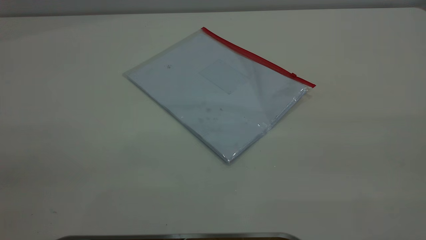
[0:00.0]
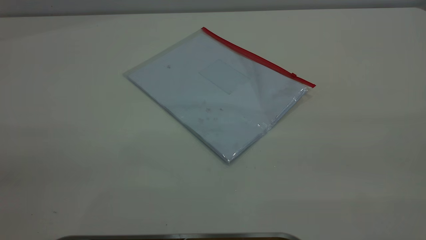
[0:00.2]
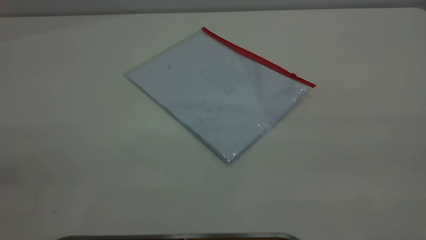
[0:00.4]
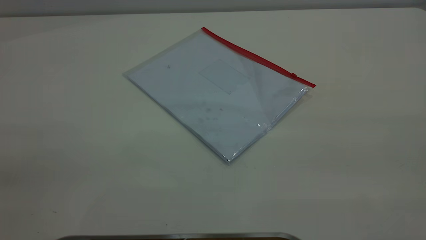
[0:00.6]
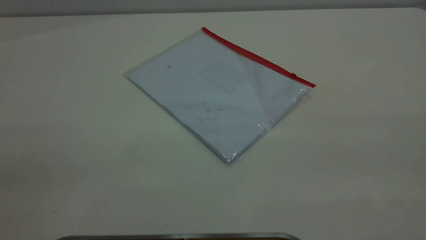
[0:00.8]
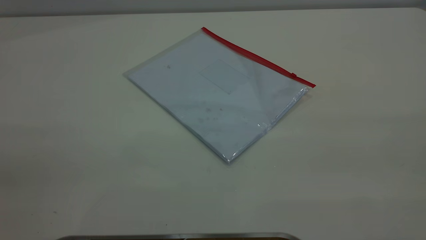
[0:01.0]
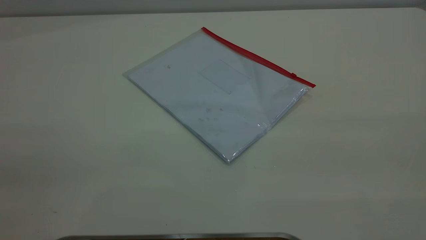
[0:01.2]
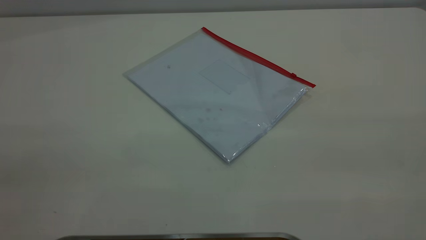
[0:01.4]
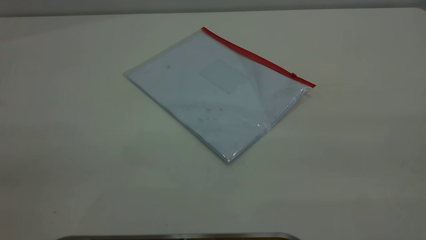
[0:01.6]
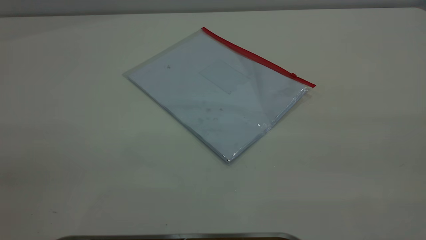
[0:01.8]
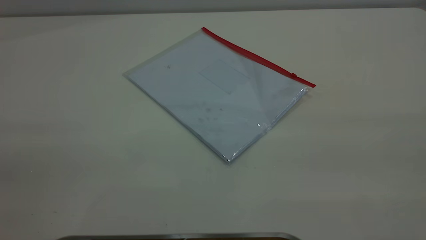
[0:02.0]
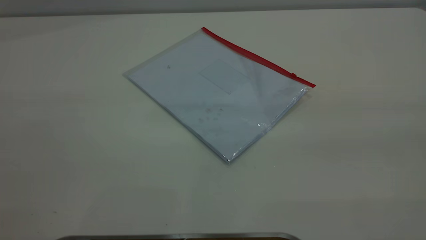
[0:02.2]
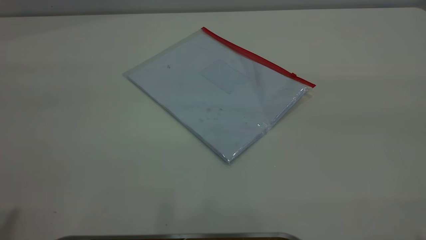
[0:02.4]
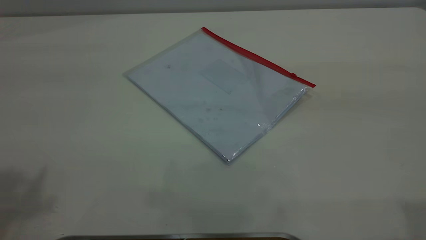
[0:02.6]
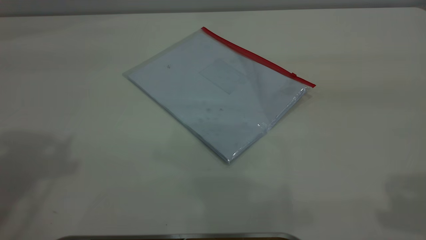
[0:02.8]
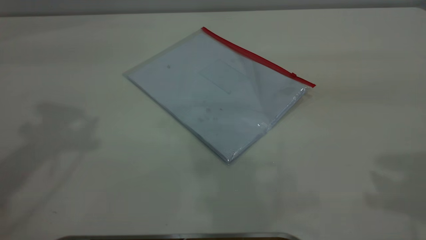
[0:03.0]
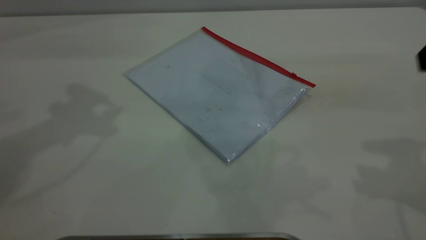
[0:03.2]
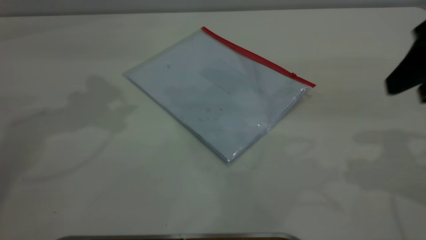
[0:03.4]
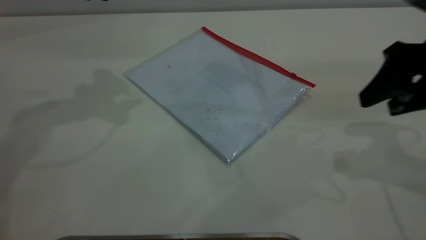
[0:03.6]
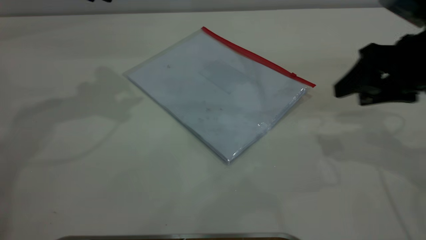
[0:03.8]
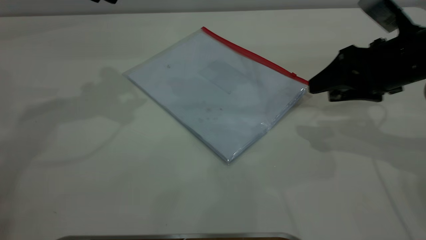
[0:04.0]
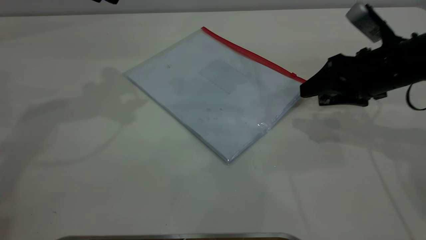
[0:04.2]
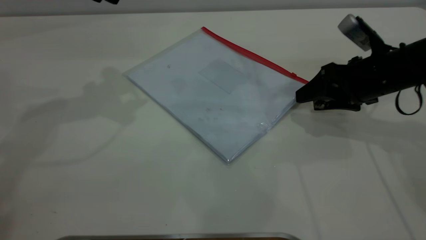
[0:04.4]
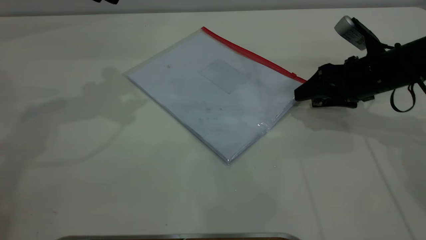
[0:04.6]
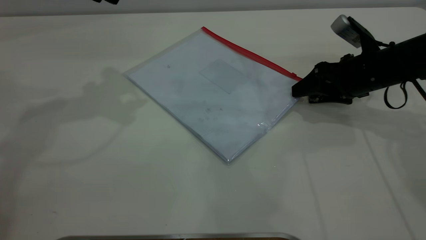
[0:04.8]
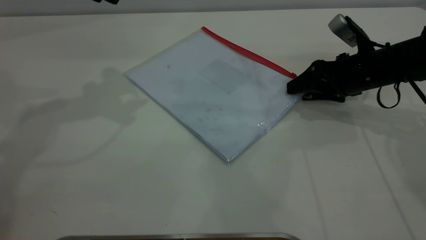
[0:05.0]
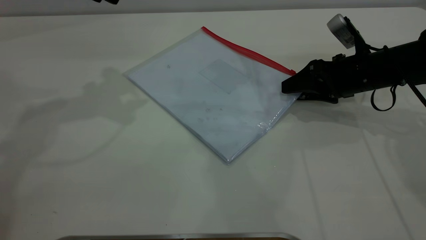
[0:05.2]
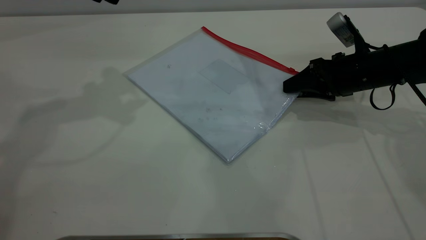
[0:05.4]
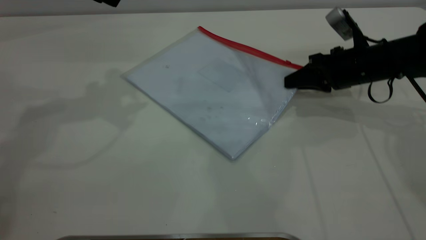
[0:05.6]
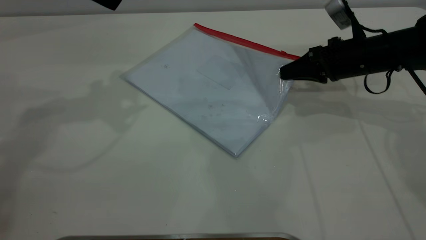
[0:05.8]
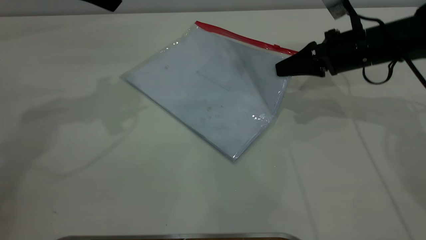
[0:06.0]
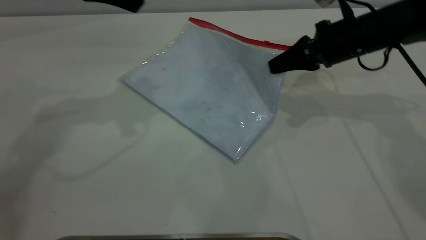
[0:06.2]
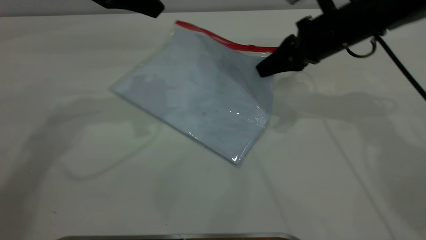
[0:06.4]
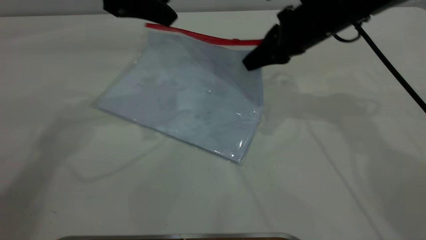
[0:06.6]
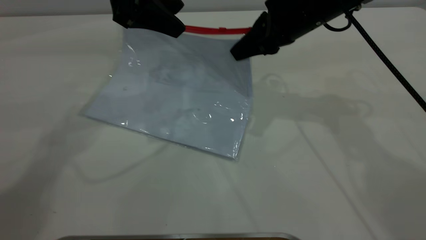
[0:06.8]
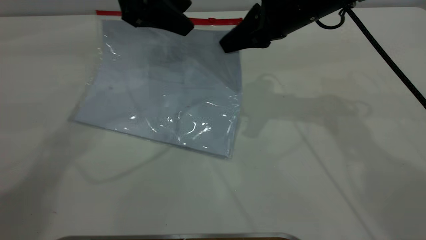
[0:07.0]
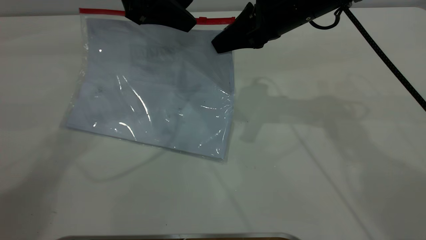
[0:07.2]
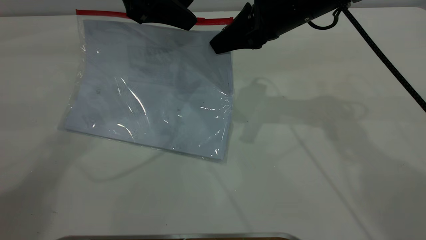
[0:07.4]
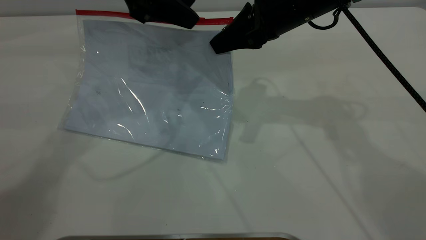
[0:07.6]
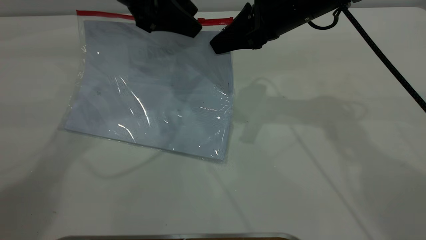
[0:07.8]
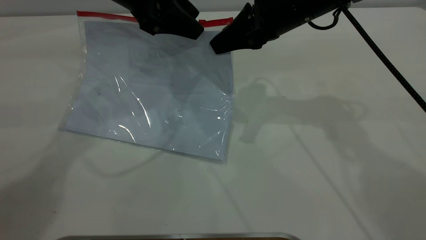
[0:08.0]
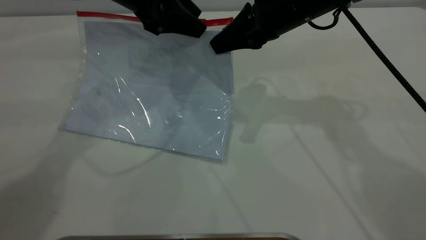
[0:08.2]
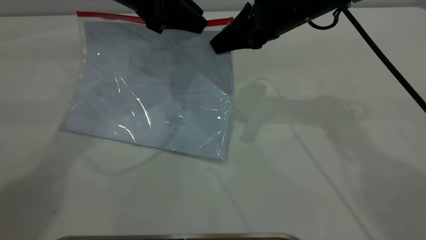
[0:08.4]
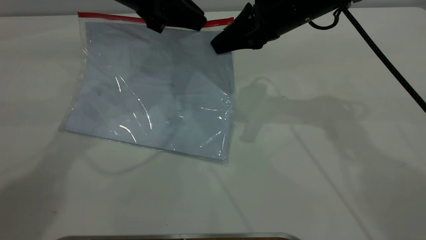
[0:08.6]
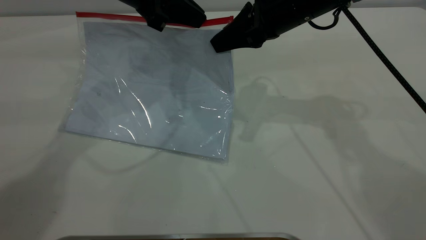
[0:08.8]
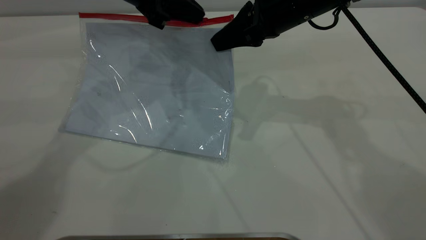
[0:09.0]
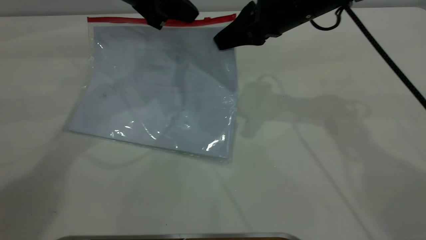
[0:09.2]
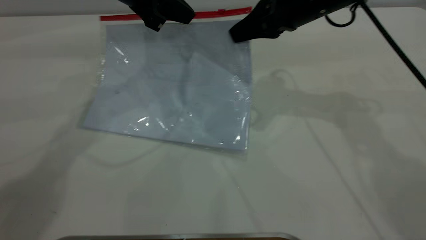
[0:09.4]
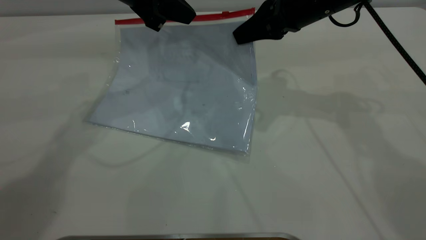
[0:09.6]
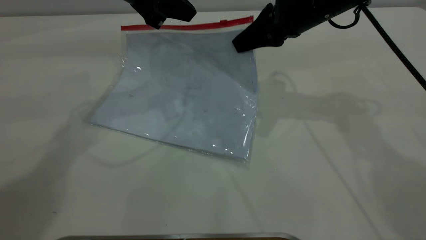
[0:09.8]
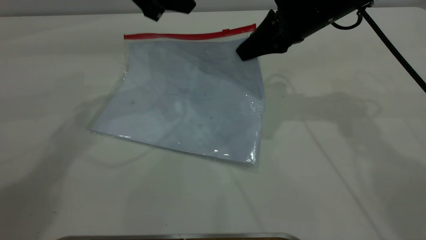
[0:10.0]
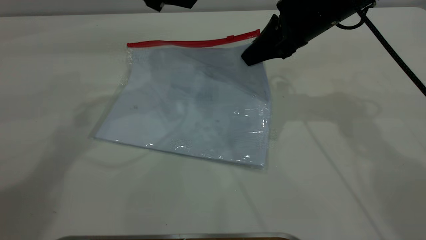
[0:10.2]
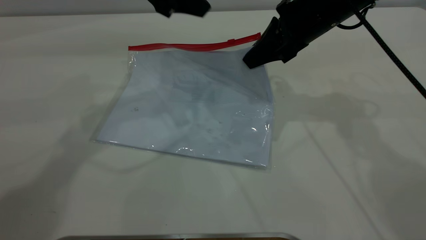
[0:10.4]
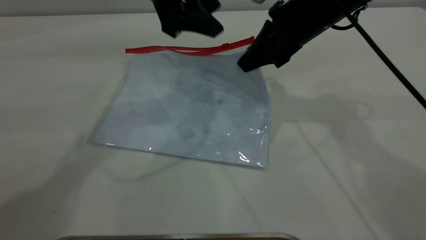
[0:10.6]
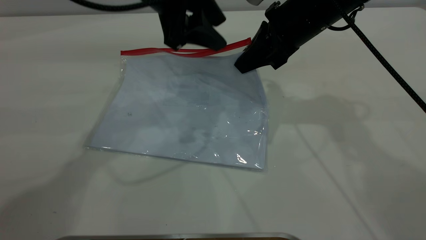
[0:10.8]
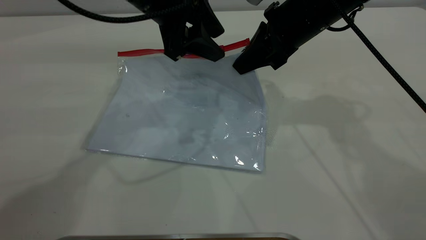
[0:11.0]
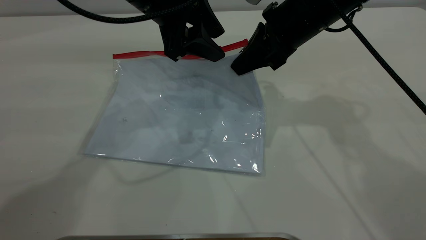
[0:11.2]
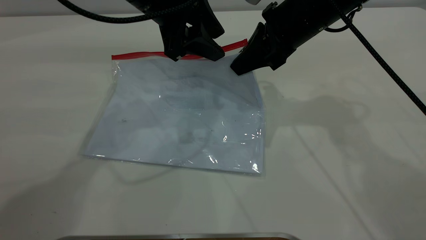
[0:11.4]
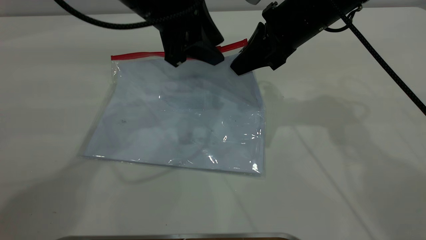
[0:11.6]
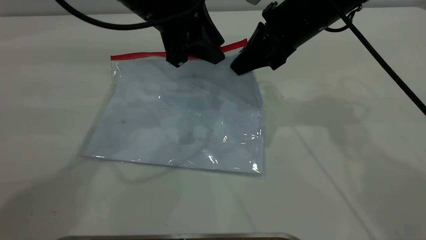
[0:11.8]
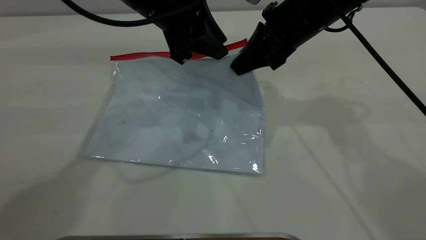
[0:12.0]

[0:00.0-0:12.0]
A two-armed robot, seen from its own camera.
Step, 0.0 to 7.4 s: Pick up the transparent plastic bag with the right gripper.
0.0 to 1.6 s: Both grippers stay put.
3.0 to 4.4 s: The right gripper is displaced downward and forward by about 30 cm.
4.4 to 6.0 s: The right gripper shifts some 5 cm forward, and closes.
6.0 to 7.6 s: The right gripper travels to the left and upward by approximately 15 cm, while the left gripper shifts roughly 10 cm to the right.
7.6 to 9.0 s: The left gripper closes its fingers.
9.0 to 10.4 s: The left gripper opens up.
10.4 to 12.0 s: The left gripper closes.

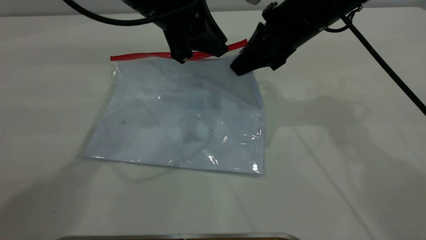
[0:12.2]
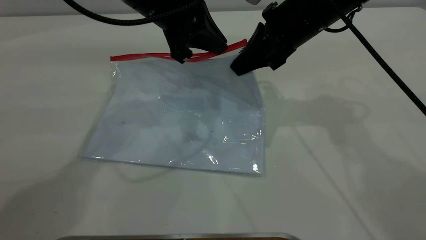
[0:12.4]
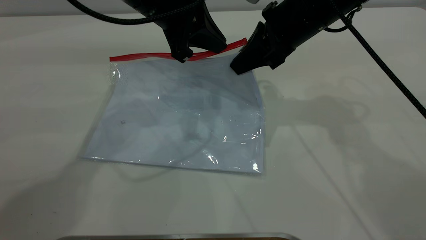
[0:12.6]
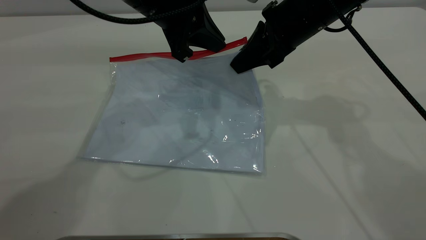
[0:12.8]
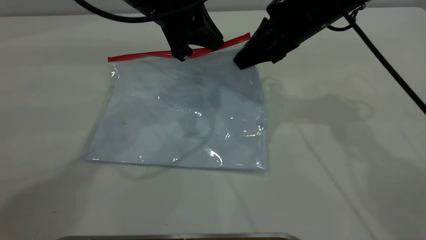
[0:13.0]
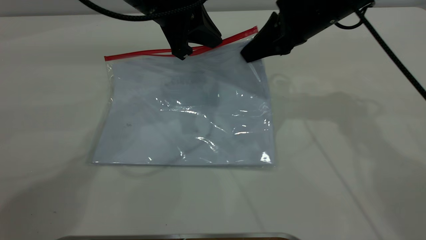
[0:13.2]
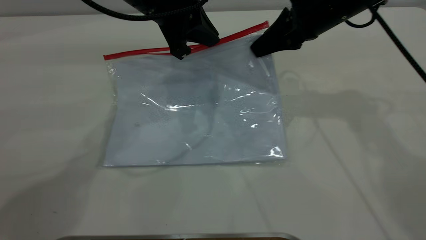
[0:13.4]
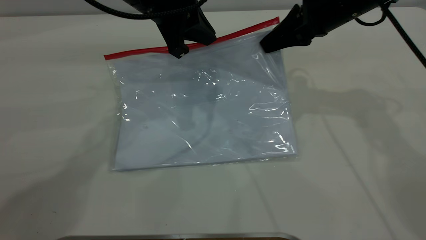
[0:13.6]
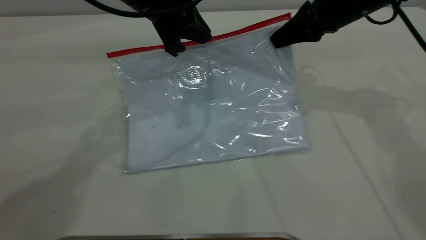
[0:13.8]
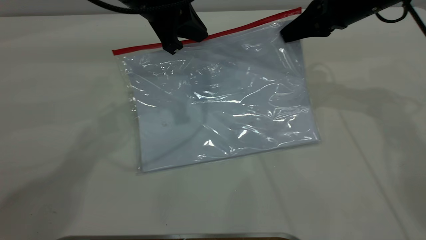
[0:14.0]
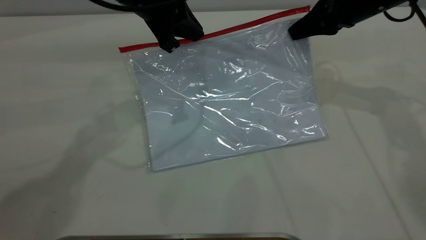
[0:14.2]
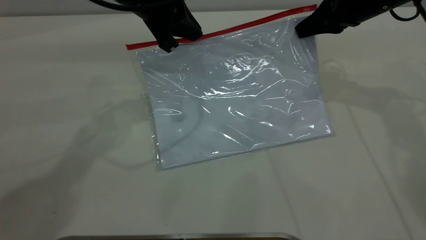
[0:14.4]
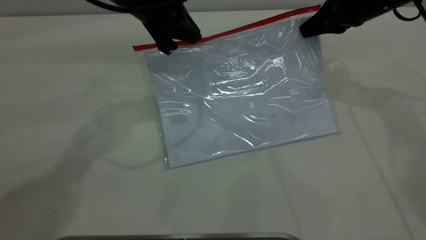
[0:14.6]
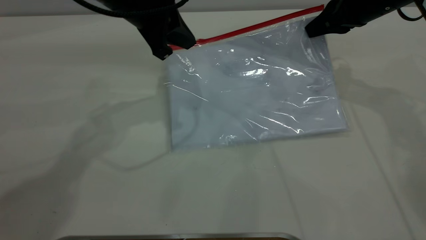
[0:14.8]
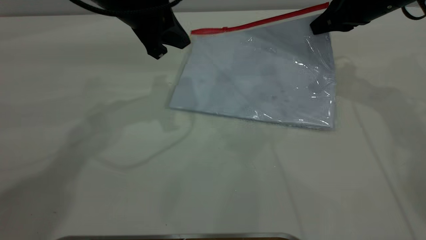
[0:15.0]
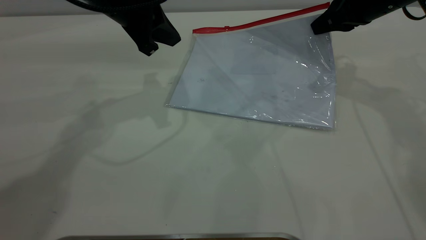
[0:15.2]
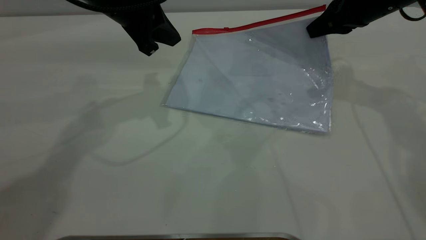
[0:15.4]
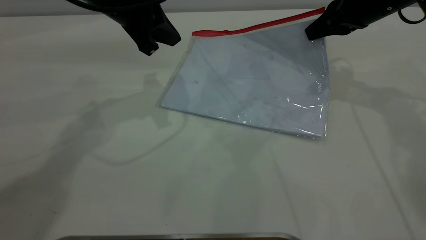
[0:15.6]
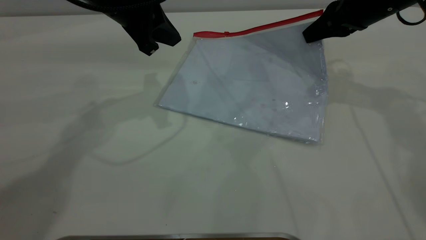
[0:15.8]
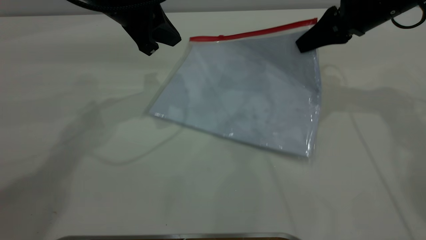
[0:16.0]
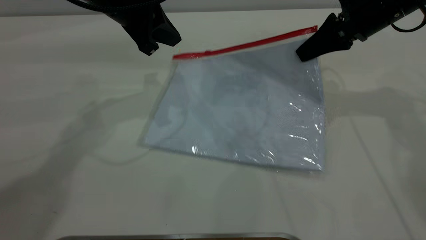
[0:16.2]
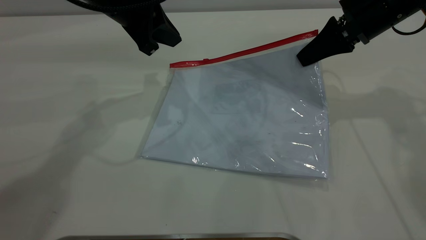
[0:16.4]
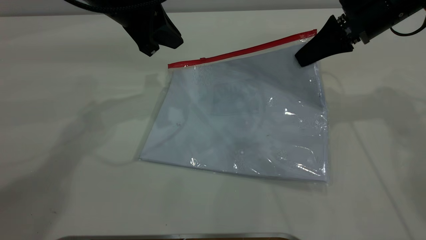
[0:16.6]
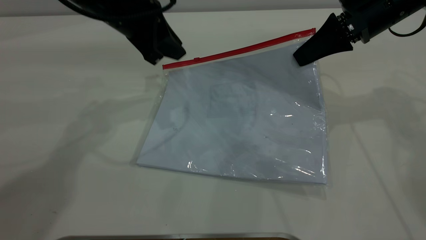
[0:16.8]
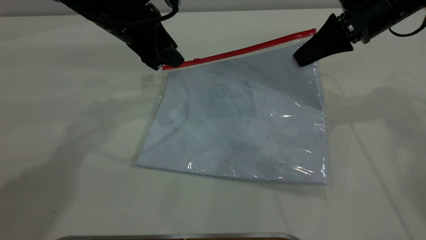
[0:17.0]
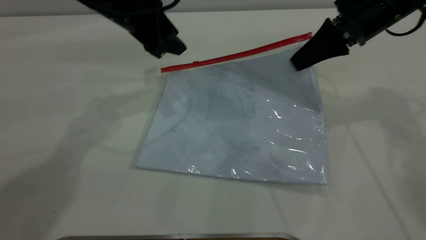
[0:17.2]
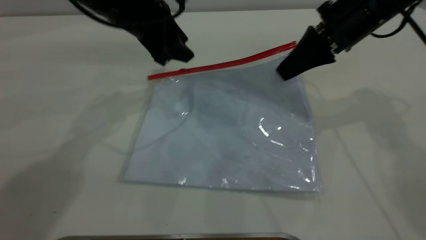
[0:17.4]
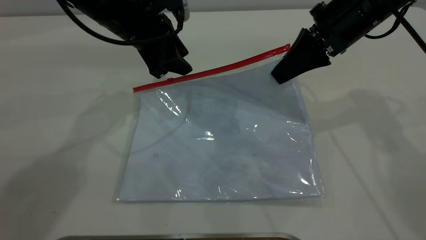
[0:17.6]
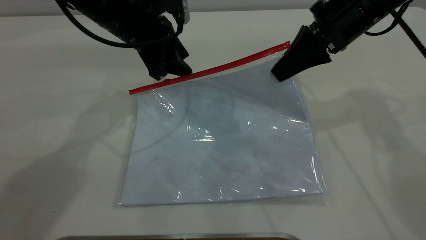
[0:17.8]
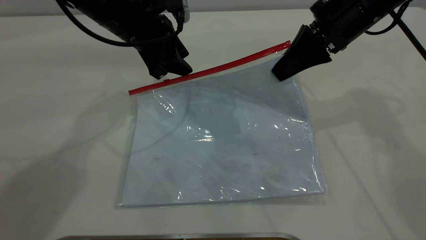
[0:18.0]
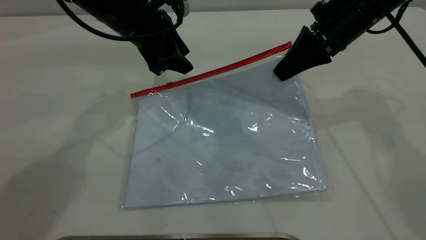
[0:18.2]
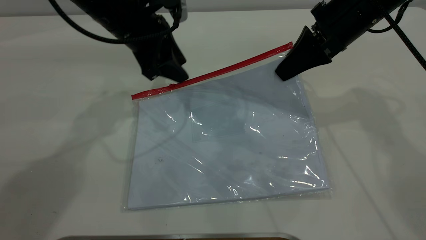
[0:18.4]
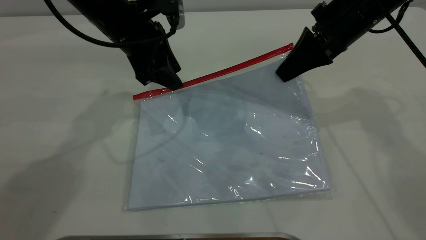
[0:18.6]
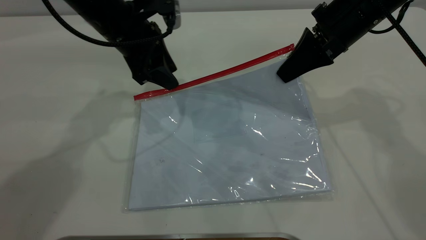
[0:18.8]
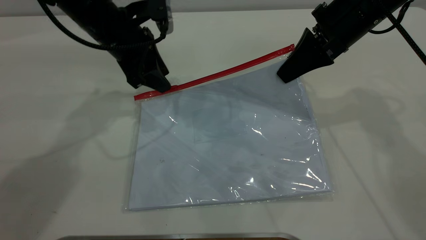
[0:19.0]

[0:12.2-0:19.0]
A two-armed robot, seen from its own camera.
12.2 to 13.6 s: The right gripper heads to the right, covering about 5 cm.
13.6 to 15.0 s: The right gripper heads to the right, covering approximately 5 cm.
16.2 to 17.6 s: The right gripper changes place by approximately 5 cm; the left gripper changes place by roughly 5 cm, and opens up.
17.6 to 19.0 s: The grippers make only small movements.
